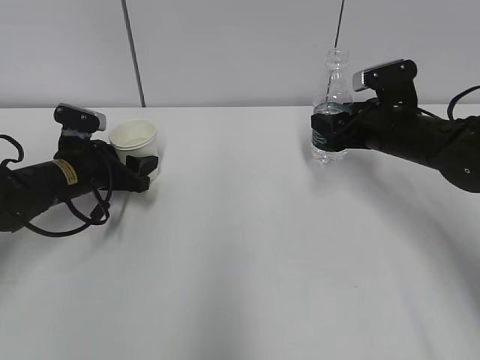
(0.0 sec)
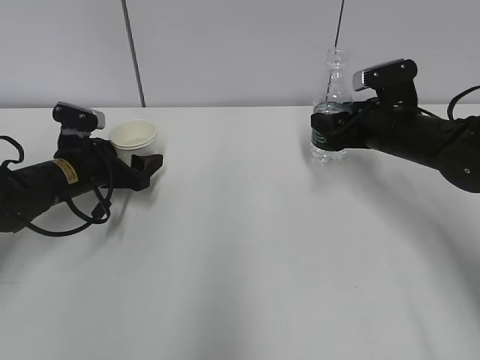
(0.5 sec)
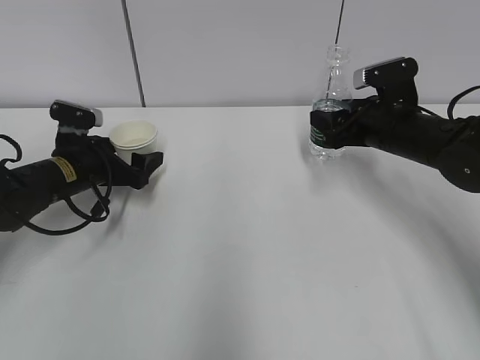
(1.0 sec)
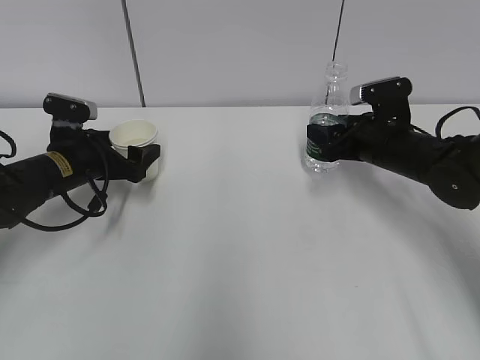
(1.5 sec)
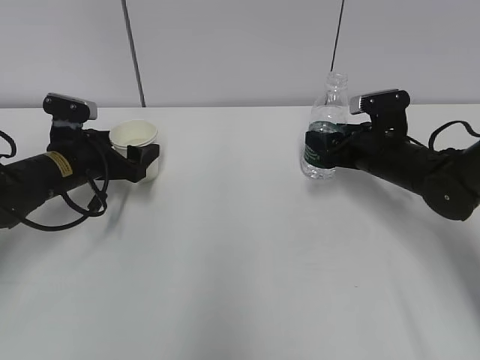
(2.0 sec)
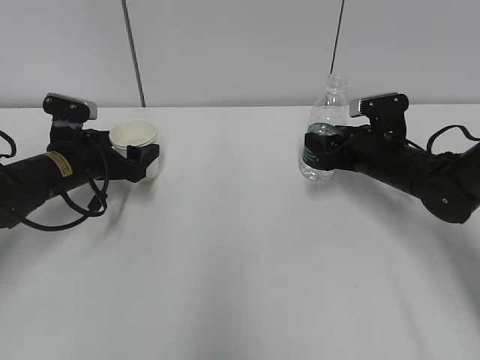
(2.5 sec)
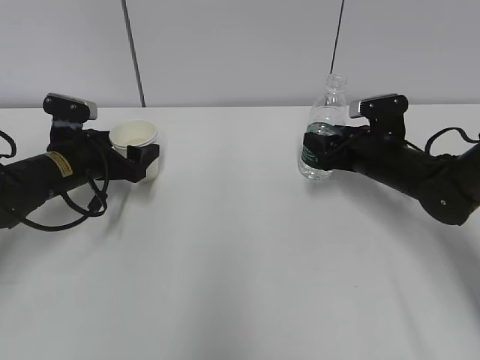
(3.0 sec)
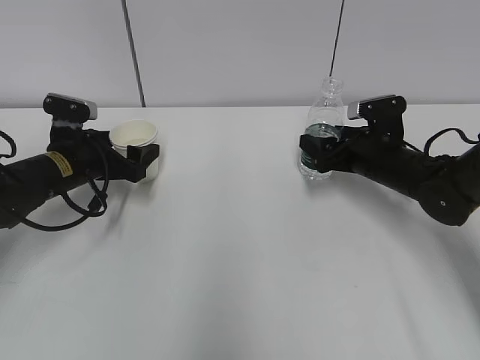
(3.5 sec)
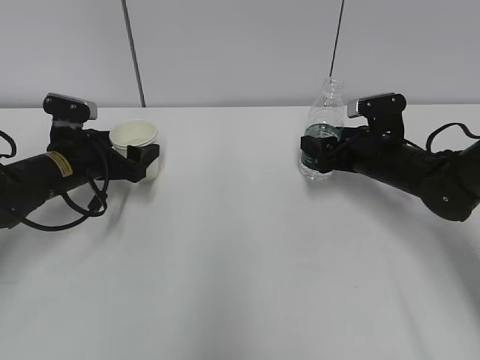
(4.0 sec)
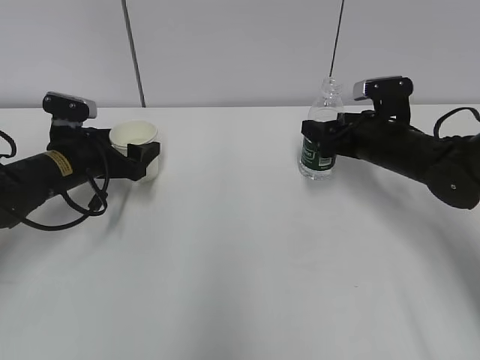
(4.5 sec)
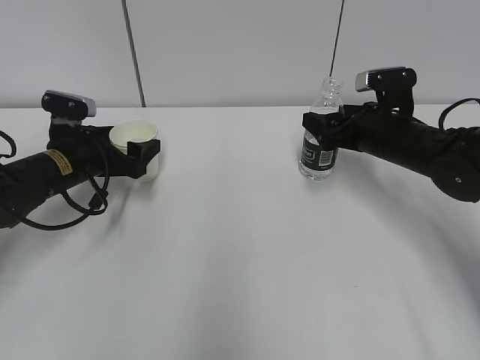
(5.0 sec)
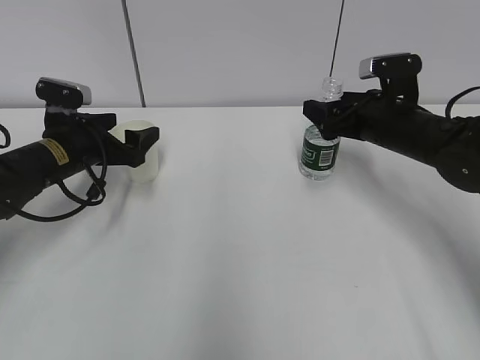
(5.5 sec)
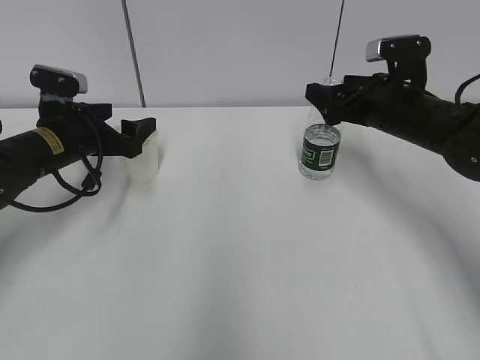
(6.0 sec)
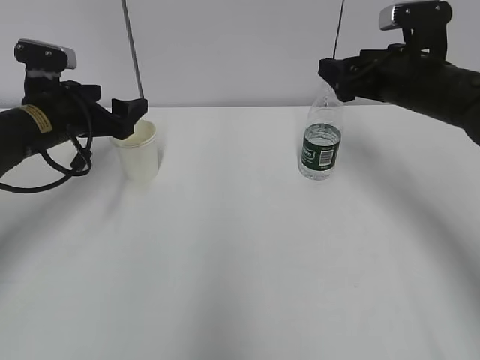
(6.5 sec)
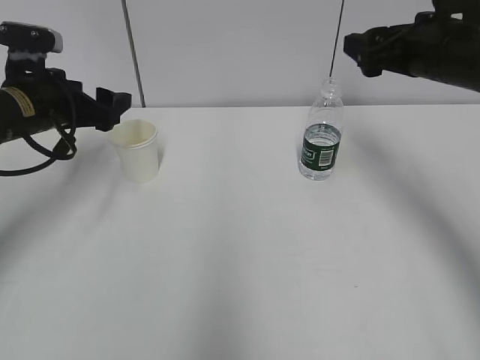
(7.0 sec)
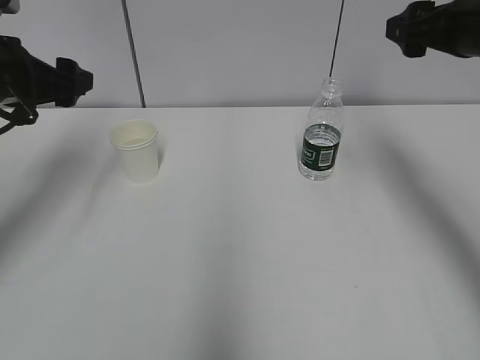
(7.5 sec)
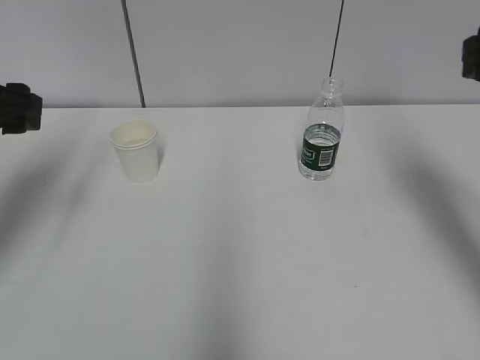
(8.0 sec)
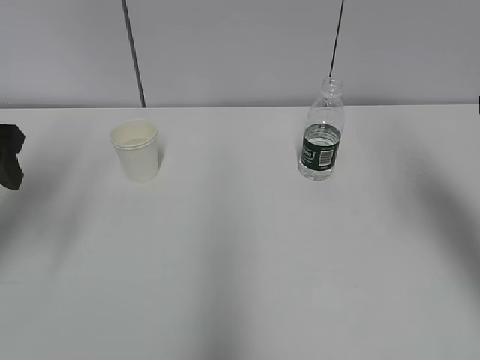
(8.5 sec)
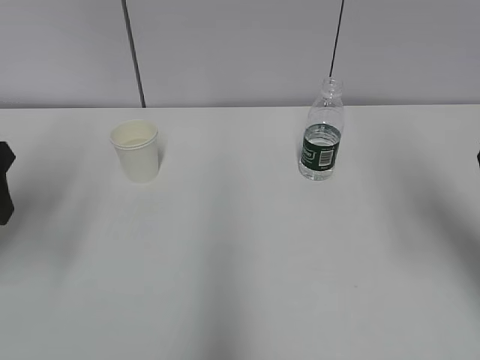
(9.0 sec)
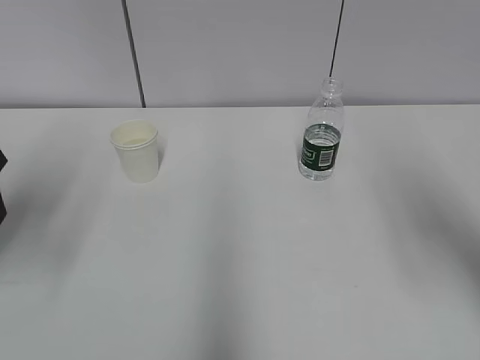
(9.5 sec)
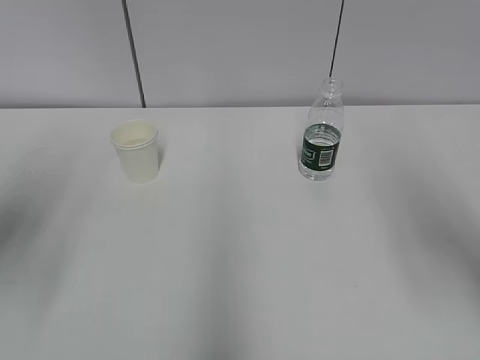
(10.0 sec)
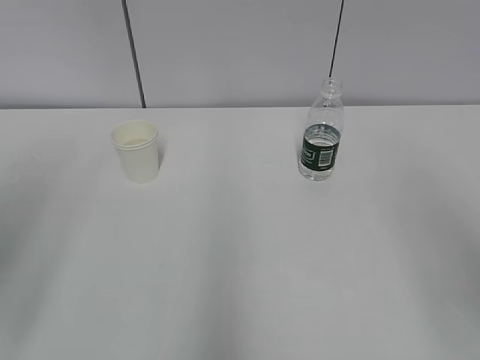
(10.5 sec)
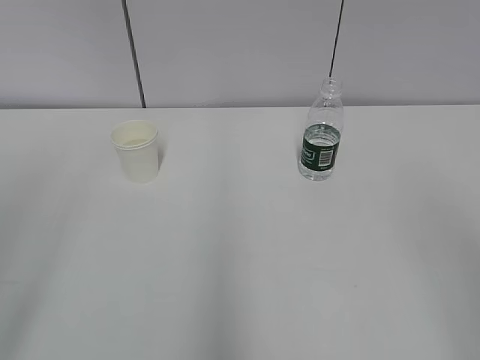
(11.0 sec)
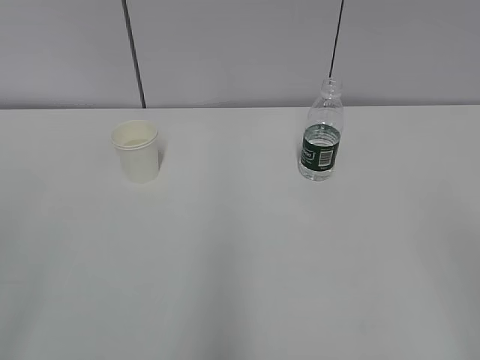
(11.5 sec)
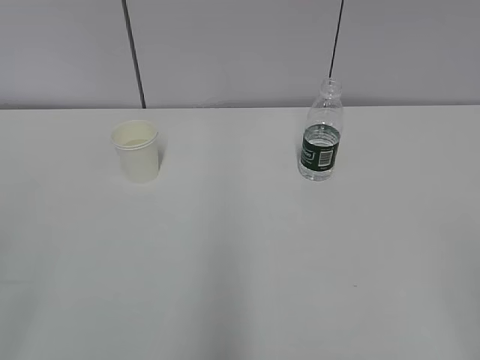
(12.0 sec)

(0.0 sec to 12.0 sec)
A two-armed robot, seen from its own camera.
0.0 sec - 2.0 sec: The left gripper opens.
2.0 sec - 4.0 sec: The right gripper opens up.
4.0 sec - 6.0 sec: The right gripper shifts about 10 cm upward.
6.0 sec - 8.0 sec: The left gripper is displaced upward, backward and to the left by about 15 cm. Meanwhile the right gripper heads upward, backward and to the right, covering some 20 cm.
8.0 sec - 10.0 sec: The grippers both shift backward by some 10 cm.
10.0 sec - 12.0 sec: The two grippers go roughly 25 cm backward.

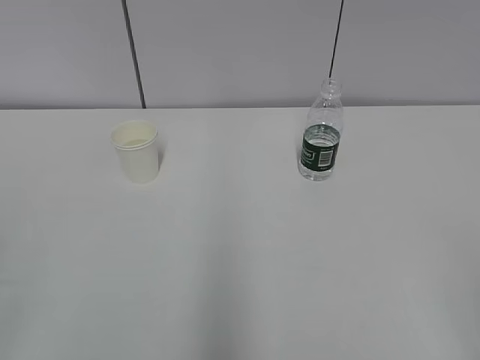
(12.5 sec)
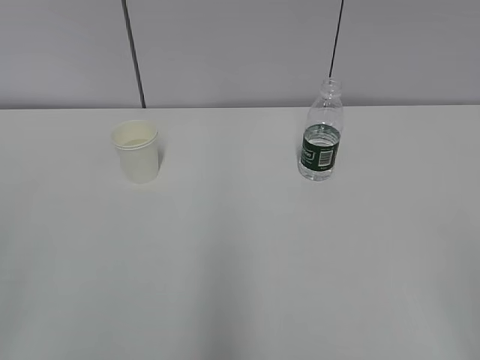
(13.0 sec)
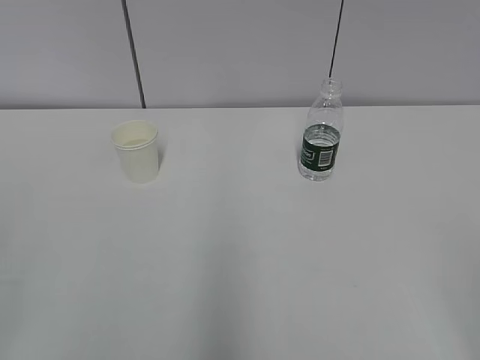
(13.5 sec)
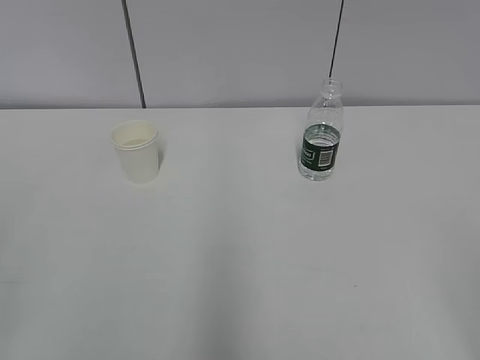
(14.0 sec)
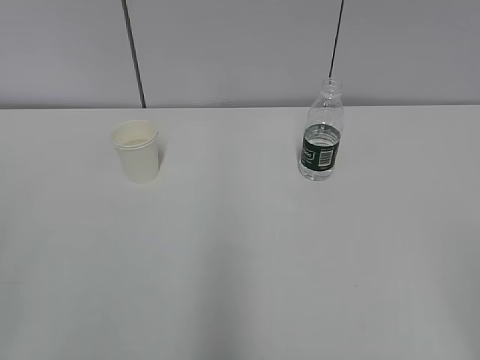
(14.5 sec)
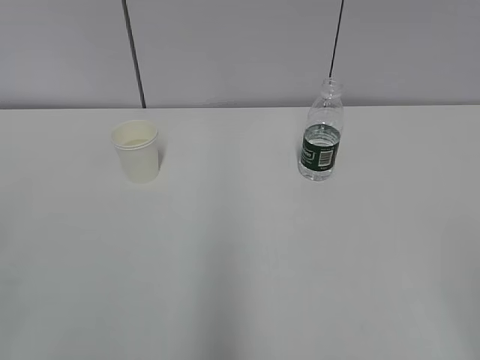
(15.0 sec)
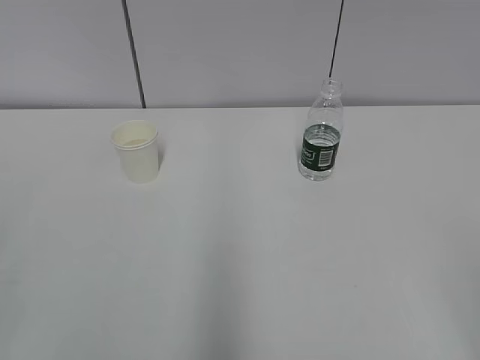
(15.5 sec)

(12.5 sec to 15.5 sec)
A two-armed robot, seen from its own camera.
14.0 sec - 15.5 sec: Neither gripper changes place.
